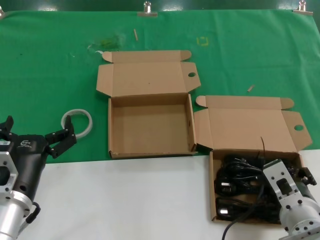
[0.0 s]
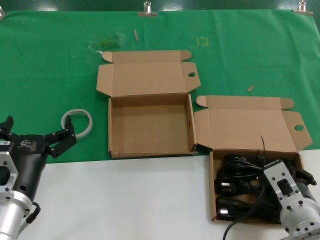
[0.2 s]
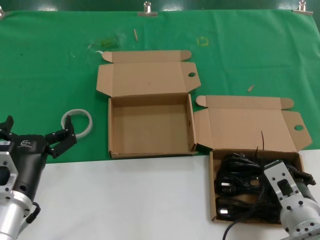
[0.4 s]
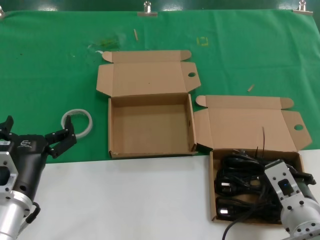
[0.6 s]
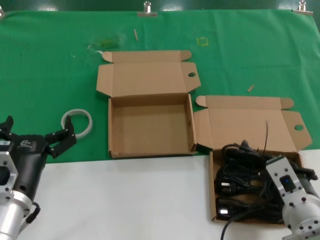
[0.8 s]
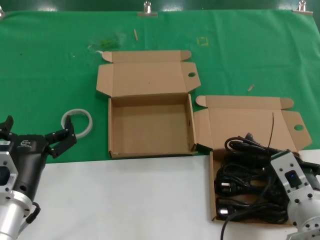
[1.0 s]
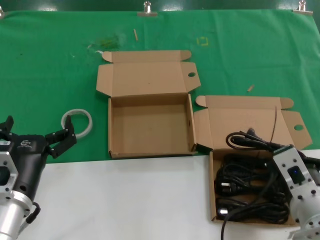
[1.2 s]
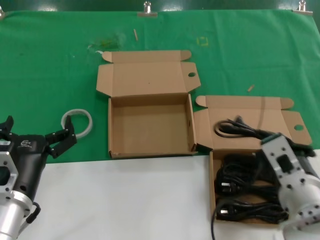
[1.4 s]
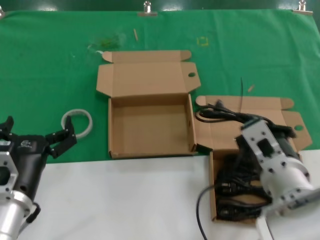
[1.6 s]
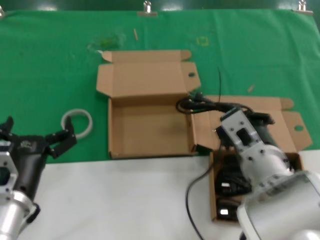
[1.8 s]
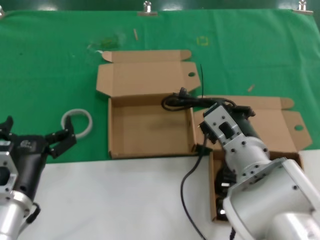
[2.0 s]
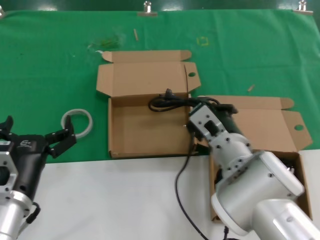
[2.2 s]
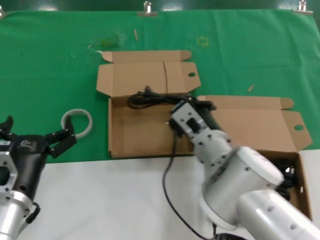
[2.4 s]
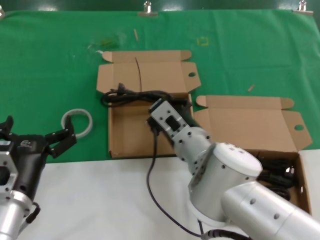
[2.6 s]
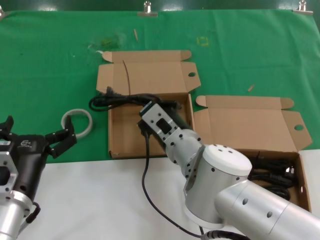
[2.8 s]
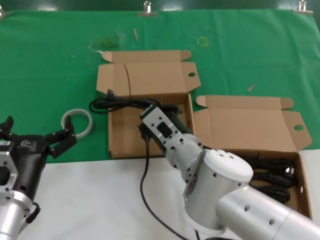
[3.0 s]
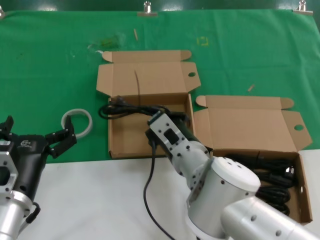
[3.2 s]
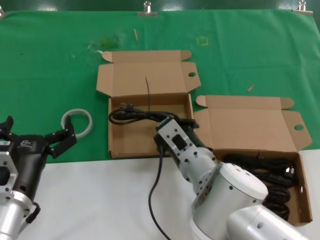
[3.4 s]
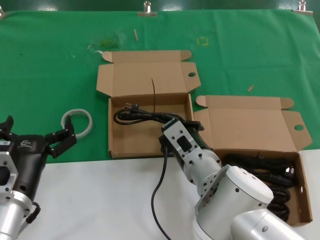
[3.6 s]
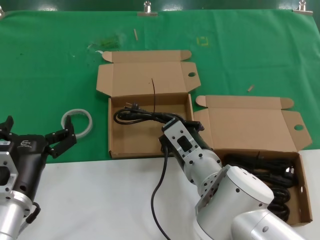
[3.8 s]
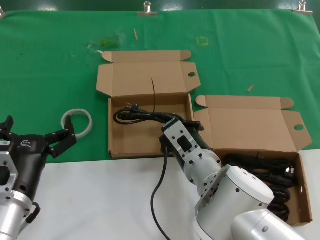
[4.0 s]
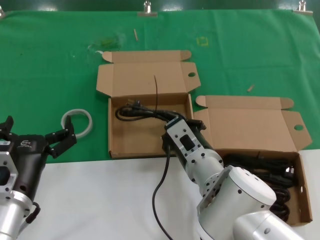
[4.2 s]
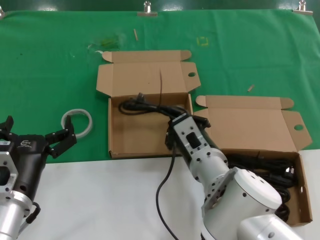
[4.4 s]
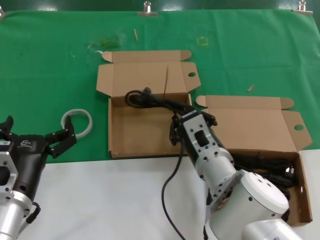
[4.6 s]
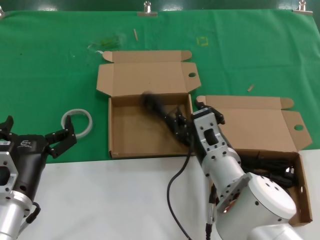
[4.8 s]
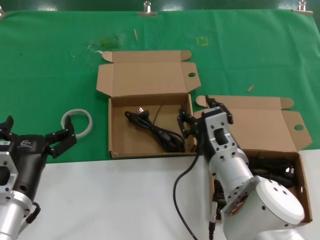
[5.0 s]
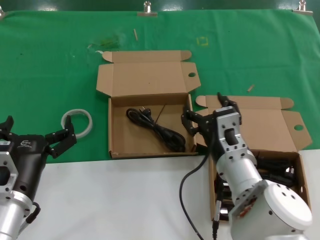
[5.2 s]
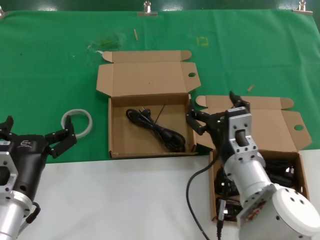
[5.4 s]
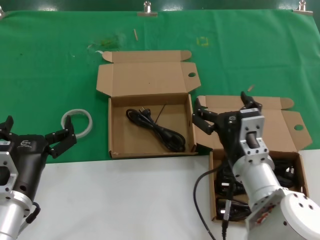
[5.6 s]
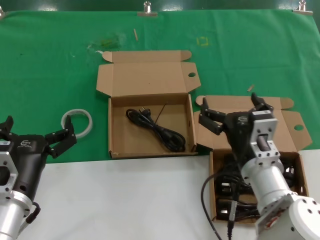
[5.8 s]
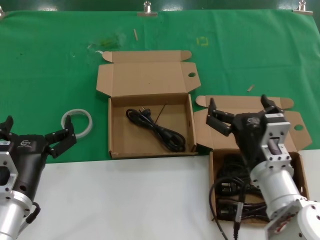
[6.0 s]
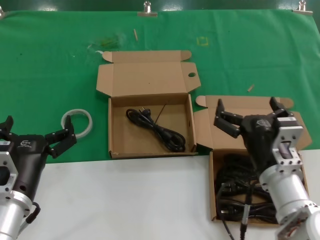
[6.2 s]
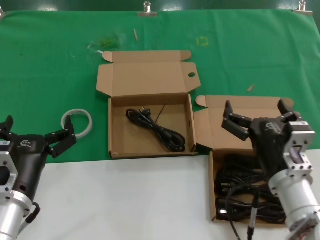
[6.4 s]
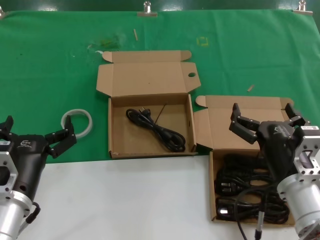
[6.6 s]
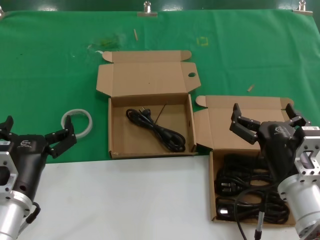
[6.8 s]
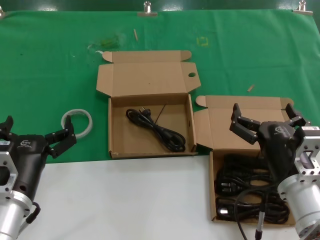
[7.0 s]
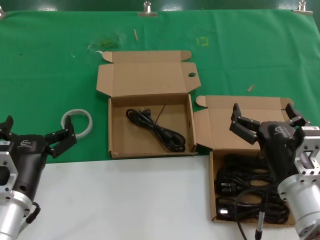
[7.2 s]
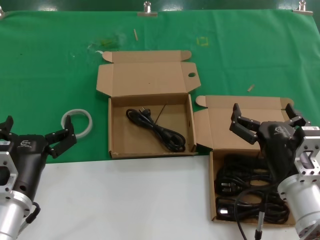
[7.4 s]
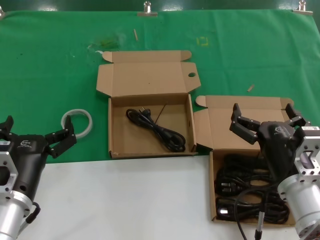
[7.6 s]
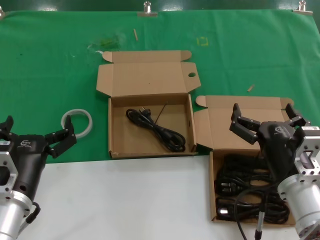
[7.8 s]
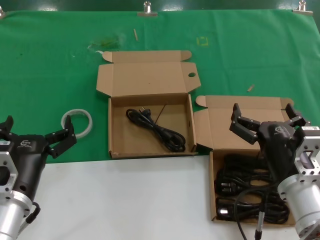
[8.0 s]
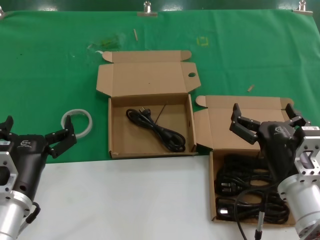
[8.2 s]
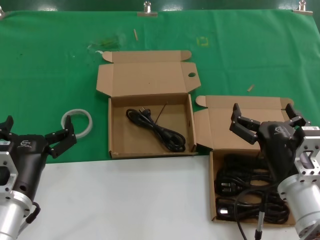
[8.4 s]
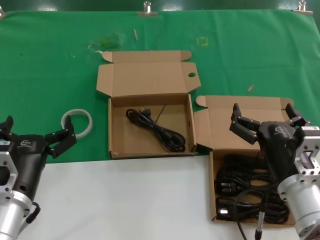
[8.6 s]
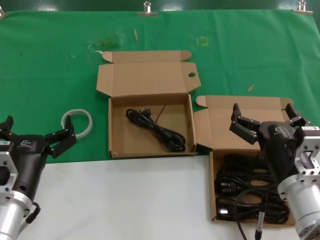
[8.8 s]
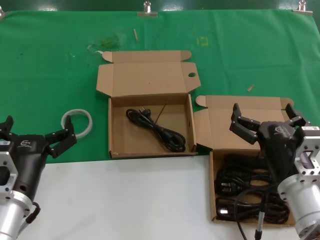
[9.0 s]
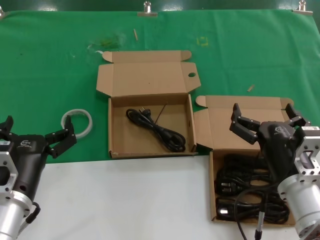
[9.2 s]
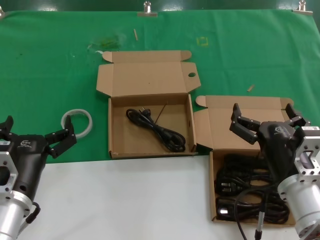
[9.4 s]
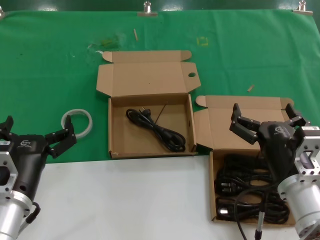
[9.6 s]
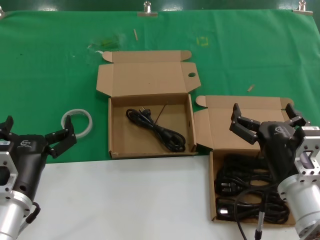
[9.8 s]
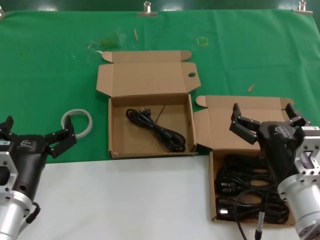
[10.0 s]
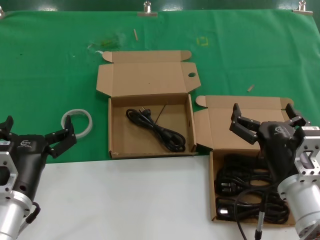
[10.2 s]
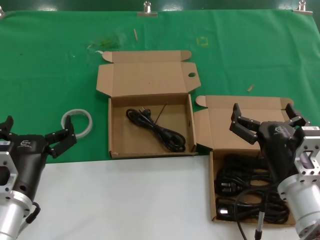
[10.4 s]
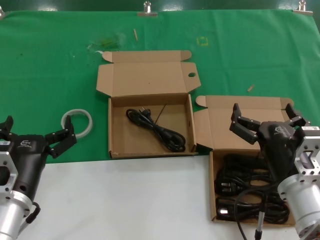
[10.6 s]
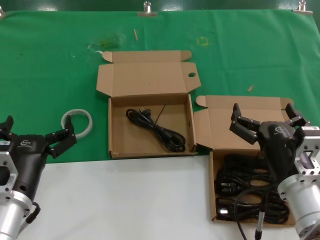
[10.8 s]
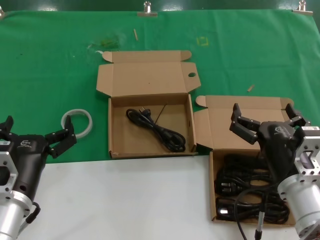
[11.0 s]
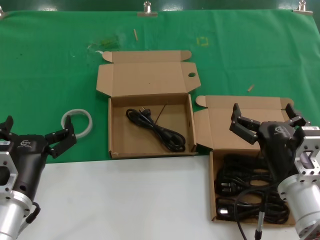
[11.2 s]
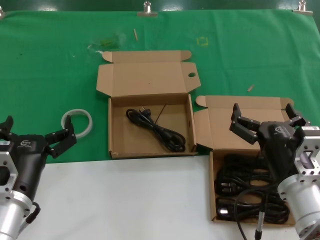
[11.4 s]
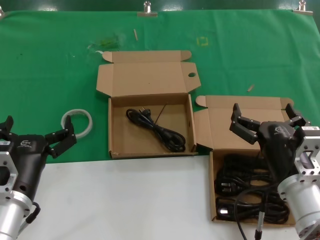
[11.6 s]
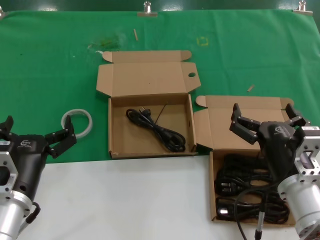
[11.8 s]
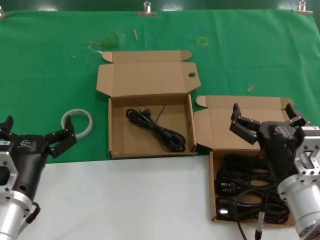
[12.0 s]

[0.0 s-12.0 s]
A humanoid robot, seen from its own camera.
Task of the whole recording: take the parts from the box containing them and put them into an empty box.
Step, 0.2 to 4.8 s: Place the data cable in the another box.
0.0 to 1.6 s: The right hand is displaced upward by roughly 10 cm.
1.6 to 3.0 s: The right hand heads to the left, forward and downward, covering about 15 cm.
3.0 to 4.4 s: The hands stay close to where they were, moving slightly.
4.4 to 6.0 s: The right hand heads to the right, covering about 10 cm.
6.0 to 7.6 s: The right hand changes place by about 5 cm.
7.6 to 12.0 s: Both hands stay about where they are.

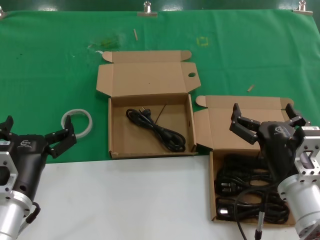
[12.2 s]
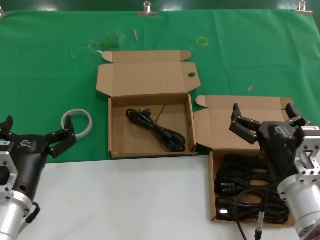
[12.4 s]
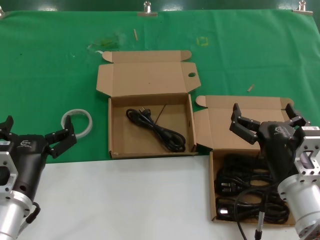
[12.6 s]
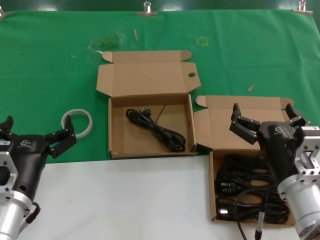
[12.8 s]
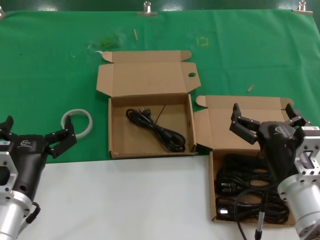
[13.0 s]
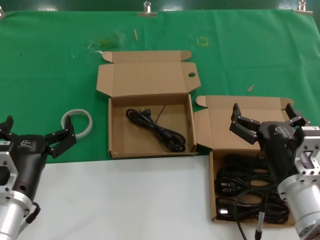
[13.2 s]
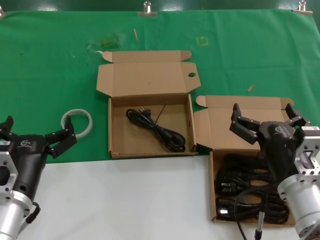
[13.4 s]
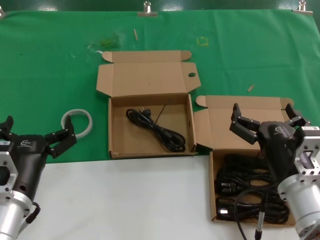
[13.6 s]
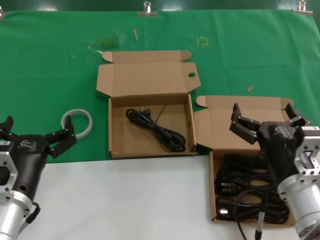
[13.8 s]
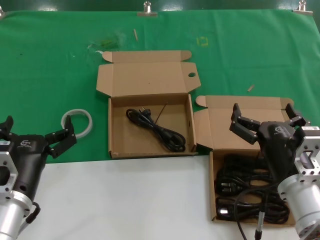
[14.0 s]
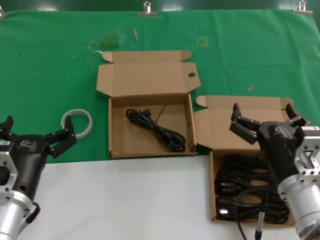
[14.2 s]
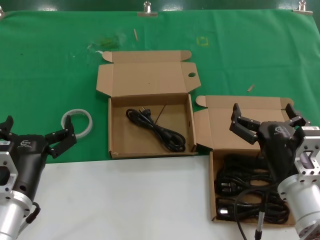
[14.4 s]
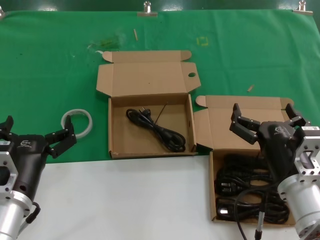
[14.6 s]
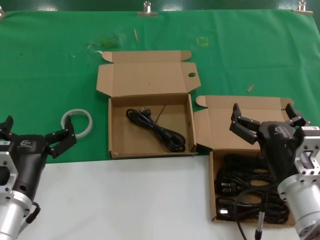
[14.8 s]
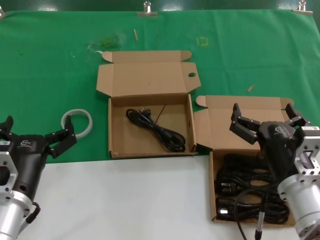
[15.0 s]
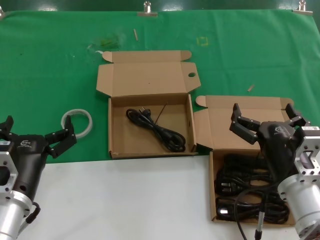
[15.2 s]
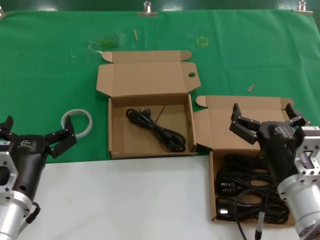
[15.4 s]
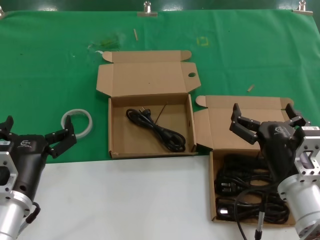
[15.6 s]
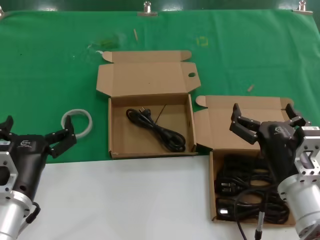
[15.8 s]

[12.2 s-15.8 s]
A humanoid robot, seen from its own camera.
Task of the whole recording: take the parts from the box containing them and put them into an empty box.
12.2 to 15.8 s: Both hands stay put.
